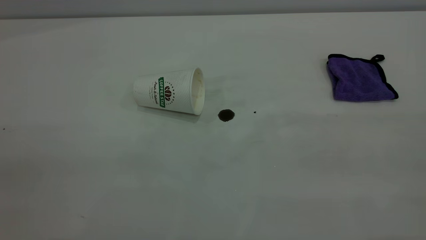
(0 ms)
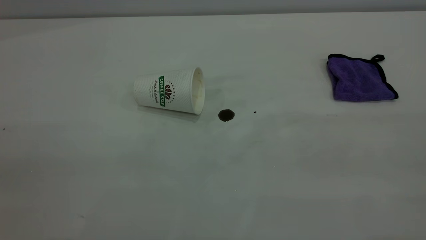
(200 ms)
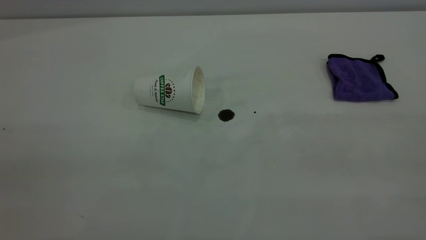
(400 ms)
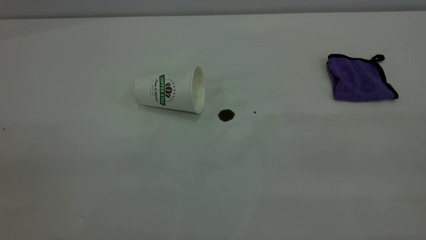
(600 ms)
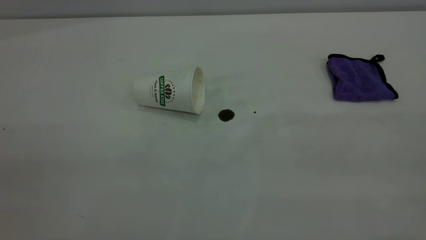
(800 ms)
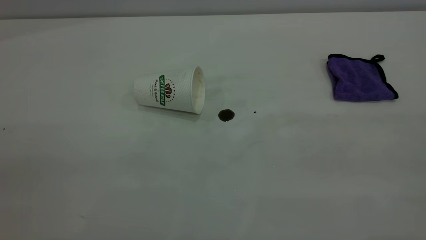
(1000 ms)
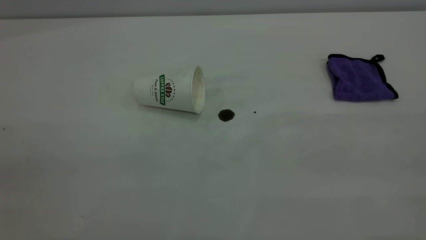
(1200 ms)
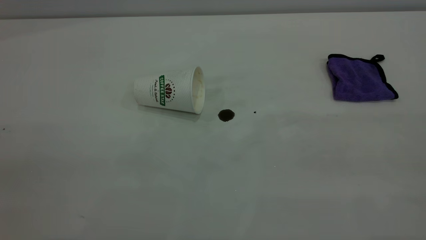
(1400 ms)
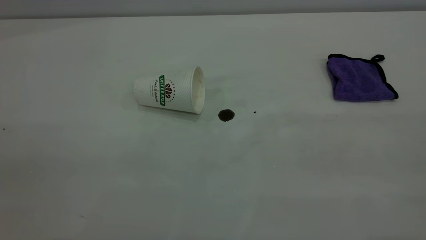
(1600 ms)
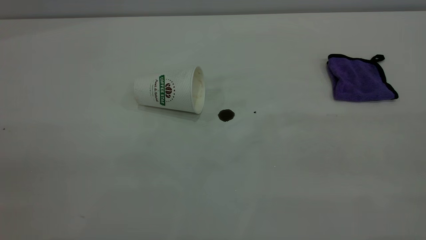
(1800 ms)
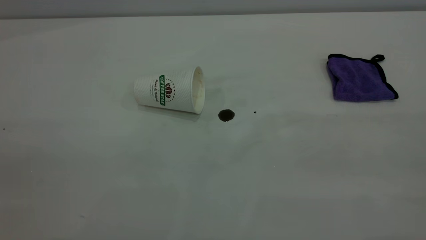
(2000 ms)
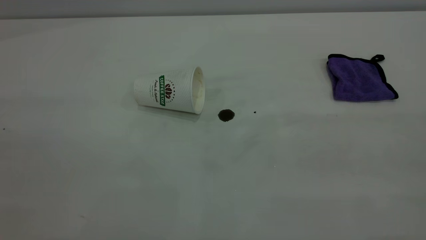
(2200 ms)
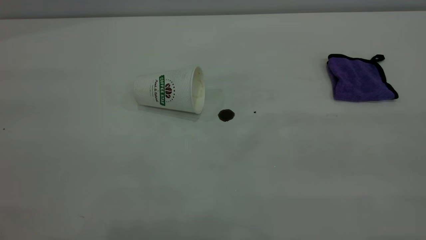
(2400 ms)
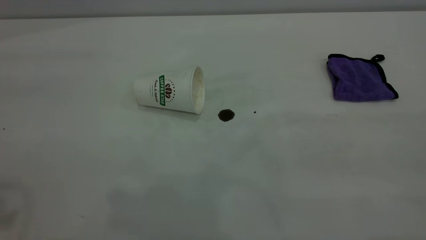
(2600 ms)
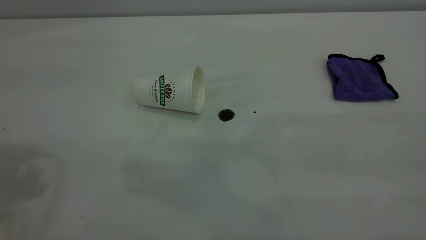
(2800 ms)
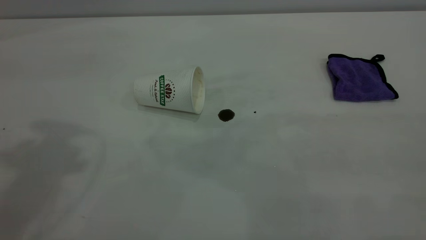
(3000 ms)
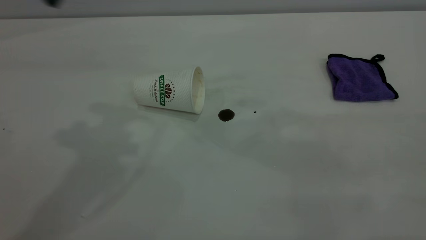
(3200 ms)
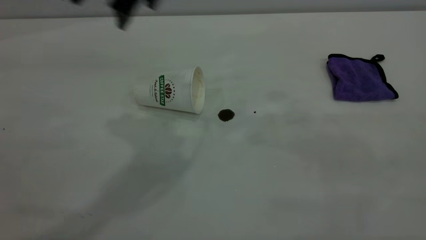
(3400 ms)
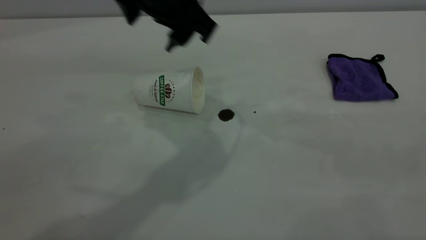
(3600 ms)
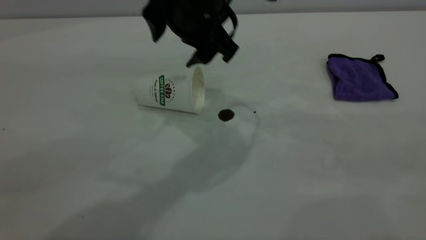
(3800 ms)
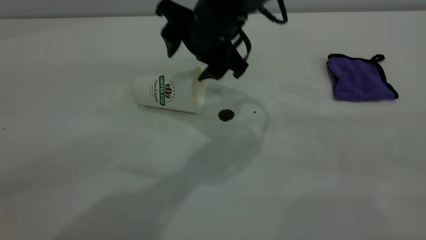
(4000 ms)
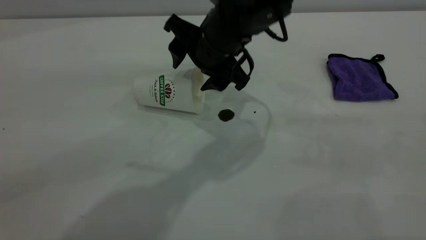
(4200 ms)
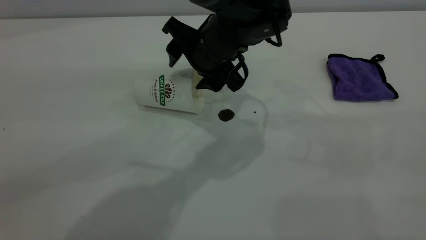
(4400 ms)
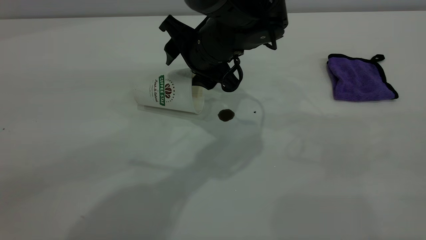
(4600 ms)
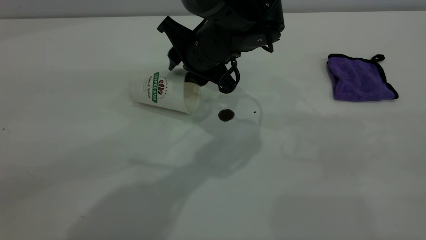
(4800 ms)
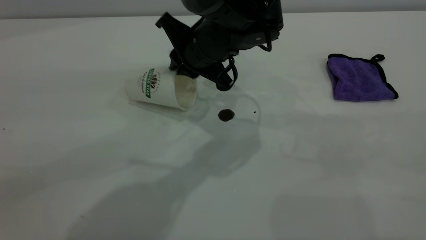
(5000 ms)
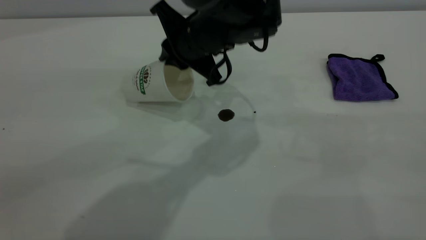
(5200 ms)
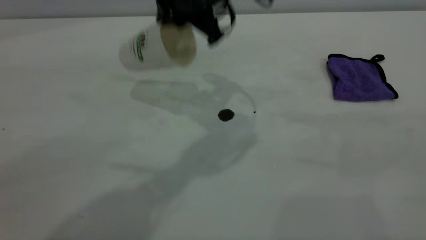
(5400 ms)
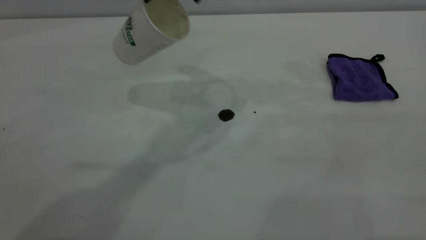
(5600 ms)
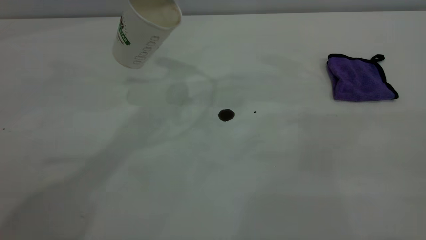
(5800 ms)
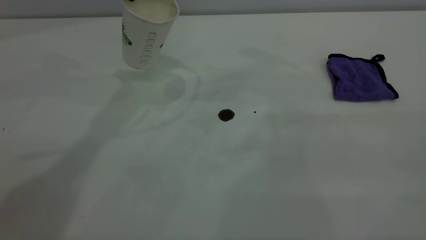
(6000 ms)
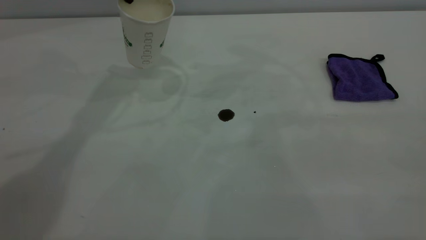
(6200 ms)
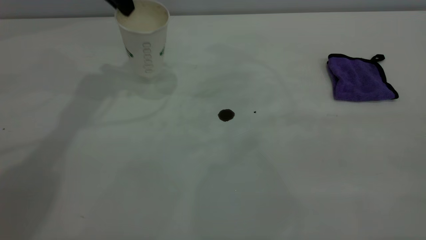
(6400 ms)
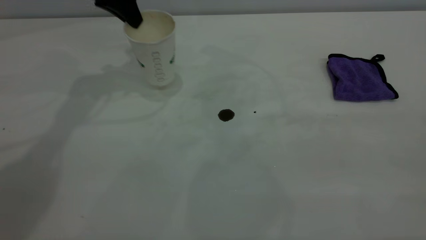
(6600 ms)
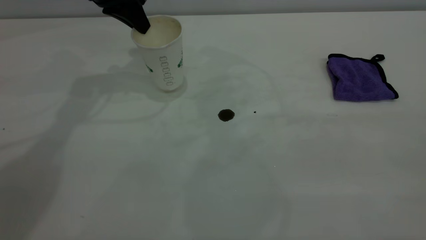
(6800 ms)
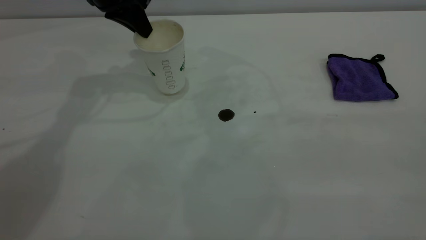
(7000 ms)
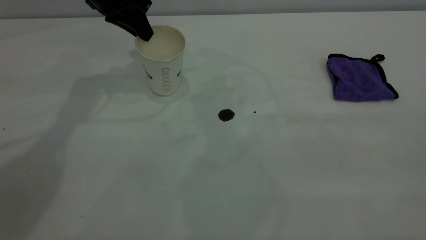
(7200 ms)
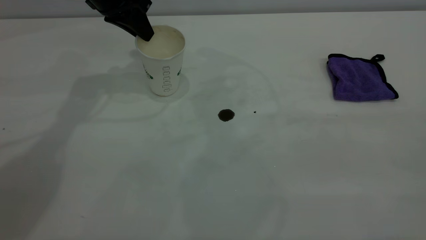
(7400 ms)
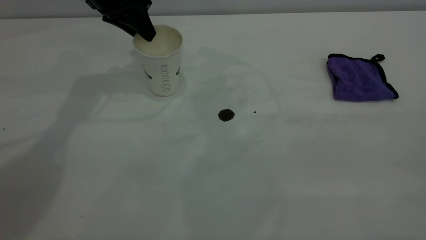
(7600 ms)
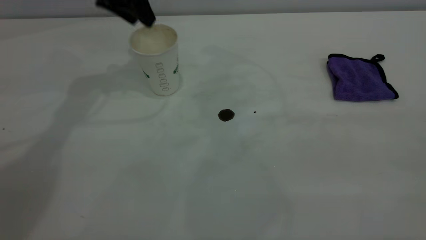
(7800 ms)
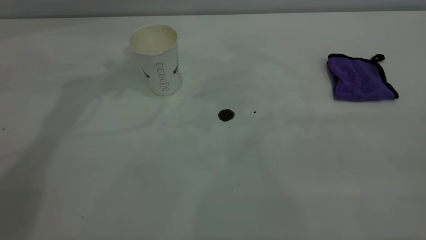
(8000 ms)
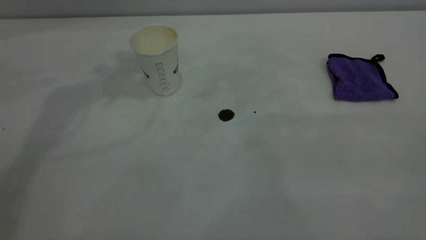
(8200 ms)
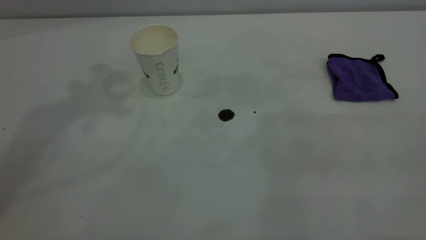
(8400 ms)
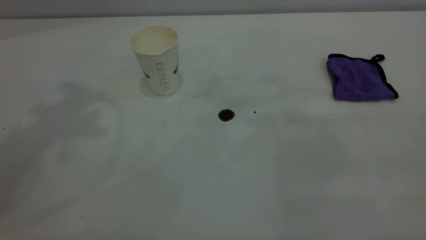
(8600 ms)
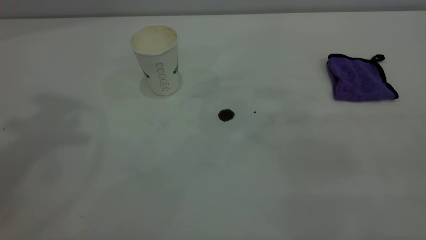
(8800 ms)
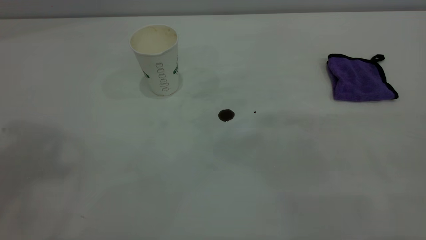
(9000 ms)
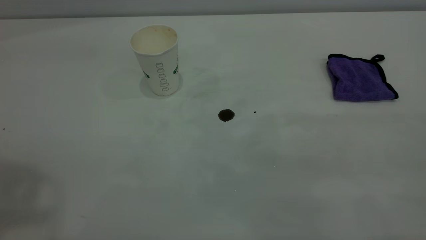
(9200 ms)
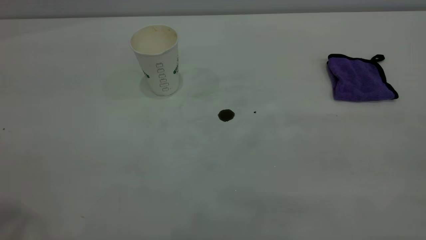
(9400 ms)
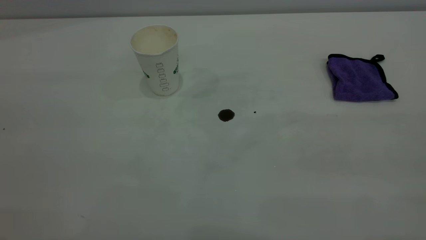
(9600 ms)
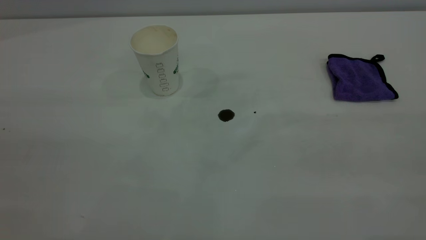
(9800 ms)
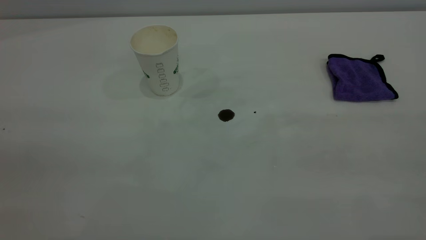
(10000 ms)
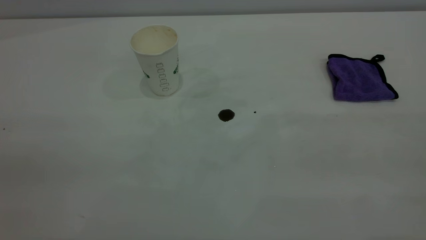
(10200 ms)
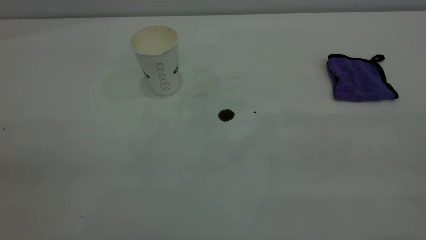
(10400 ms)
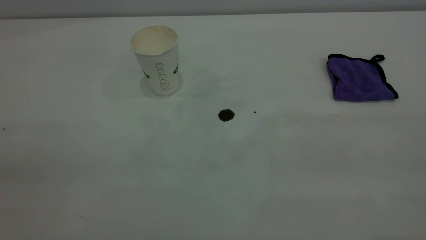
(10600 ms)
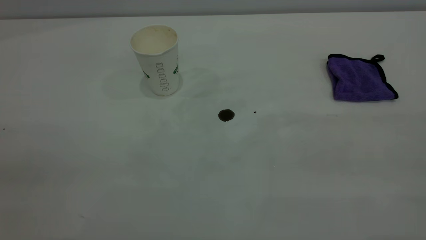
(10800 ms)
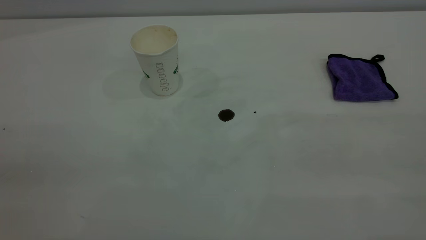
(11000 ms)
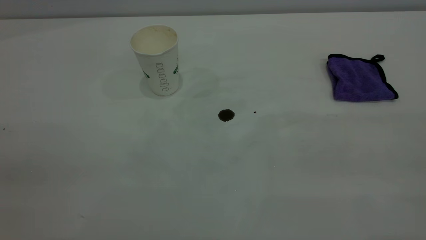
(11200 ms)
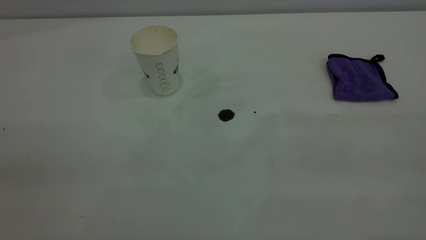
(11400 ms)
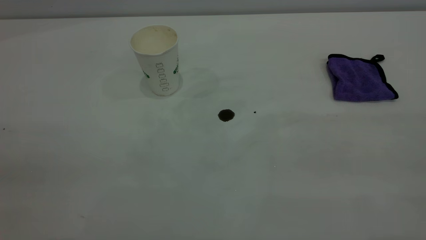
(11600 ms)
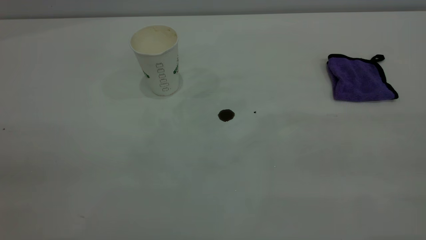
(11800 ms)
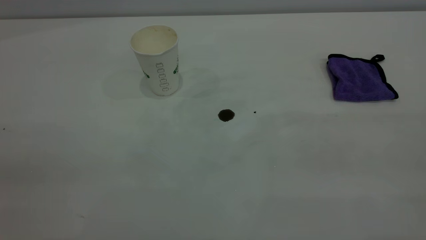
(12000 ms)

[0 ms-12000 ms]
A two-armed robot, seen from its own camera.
Task of the whole recording: the left gripper pick up the fallen cup and place it upright, the right gripper grasp the purple rag and wipe the coffee stain on the table, the right gripper put the purple rag back in its original position.
Step, 0 ms to 7600 ms: Stand the paper cup upright.
0 ms to 1600 ms: Both grippers stay put.
3000 ms to 4400 ms: The left gripper heads to the right and downward, covering about 35 cm.
4400 ms to 6000 ms: The left gripper shifts some 25 cm upward, to the left and forward, and closes up.
6000 ms to 7600 ms: The left gripper shifts some 10 cm downward and to the left, and opens its fingers.
7600 ms to 9000 ms: The left gripper moves upward and backward, approximately 40 cm.
10400 ms to 12000 ms: Both grippers stay put.

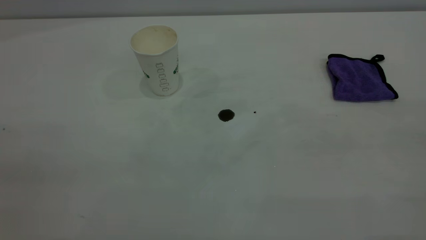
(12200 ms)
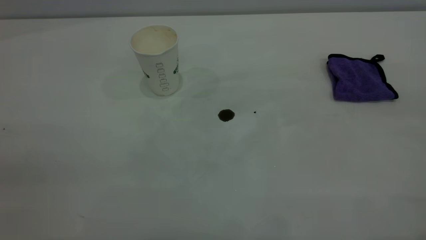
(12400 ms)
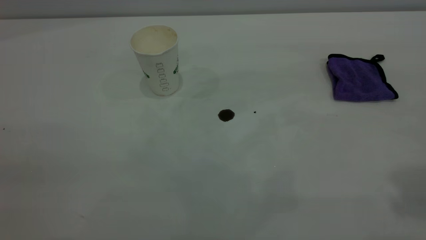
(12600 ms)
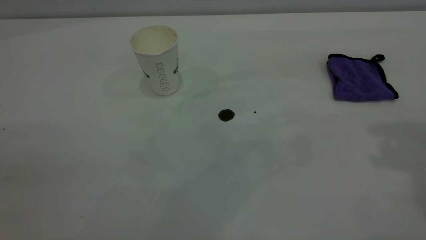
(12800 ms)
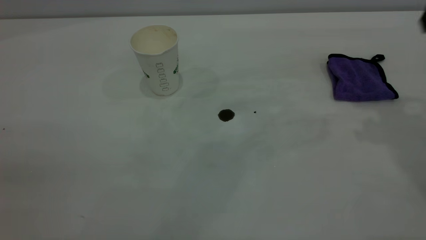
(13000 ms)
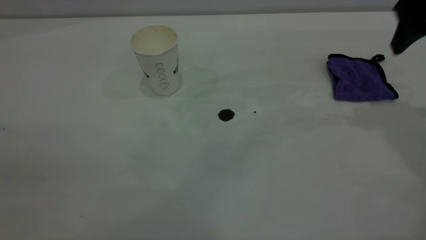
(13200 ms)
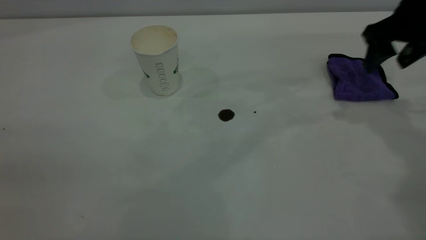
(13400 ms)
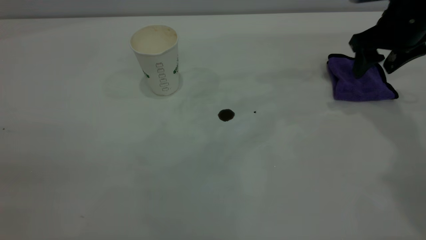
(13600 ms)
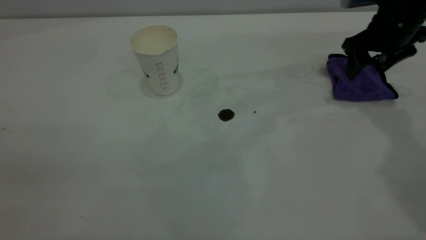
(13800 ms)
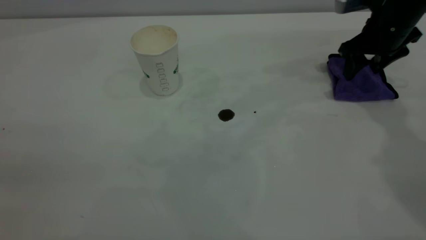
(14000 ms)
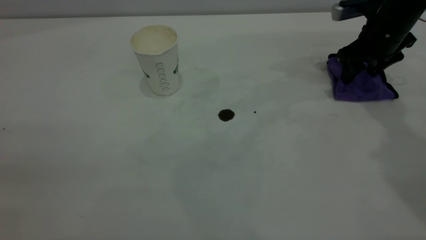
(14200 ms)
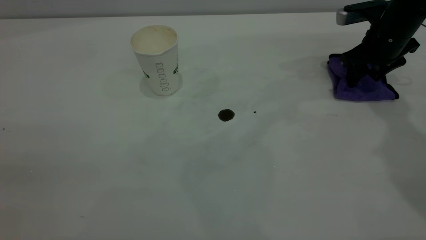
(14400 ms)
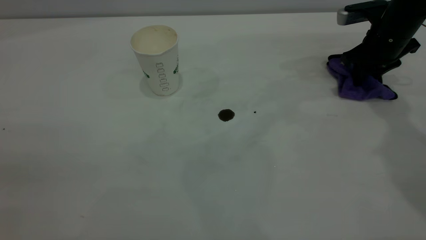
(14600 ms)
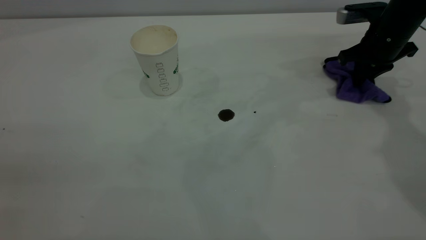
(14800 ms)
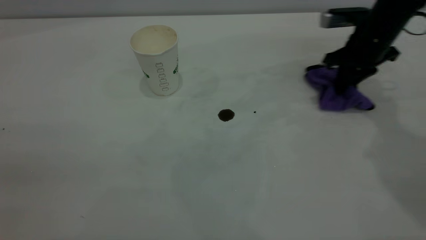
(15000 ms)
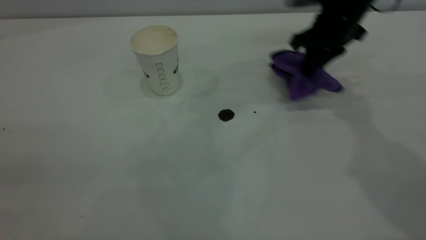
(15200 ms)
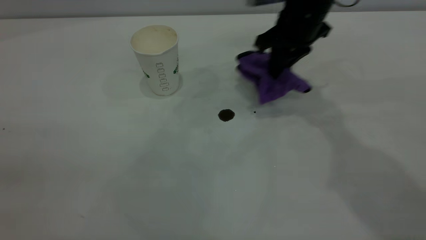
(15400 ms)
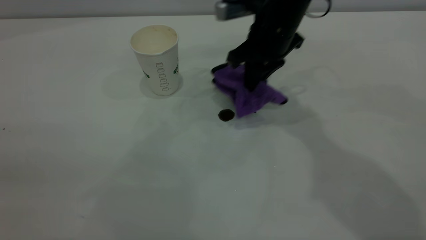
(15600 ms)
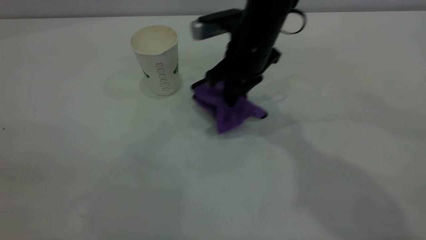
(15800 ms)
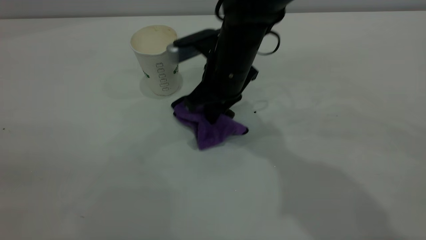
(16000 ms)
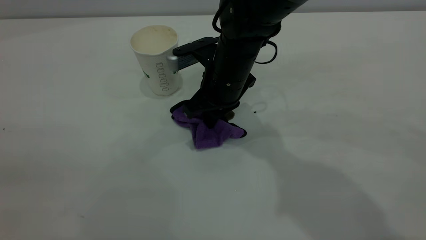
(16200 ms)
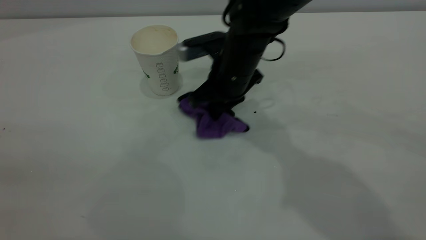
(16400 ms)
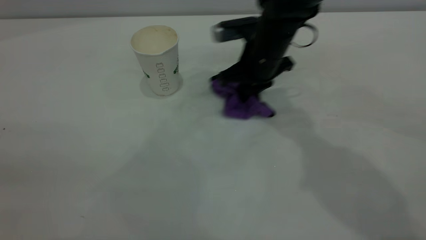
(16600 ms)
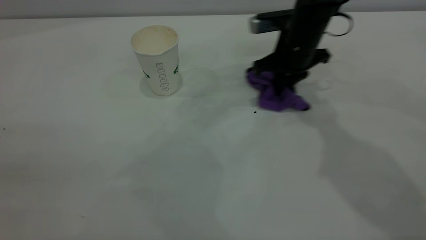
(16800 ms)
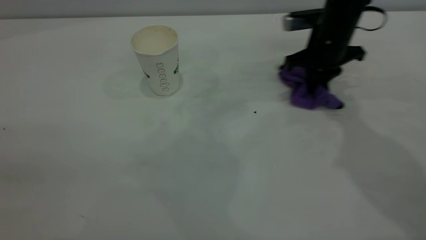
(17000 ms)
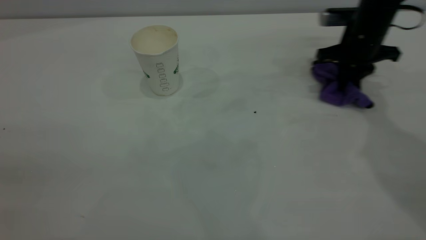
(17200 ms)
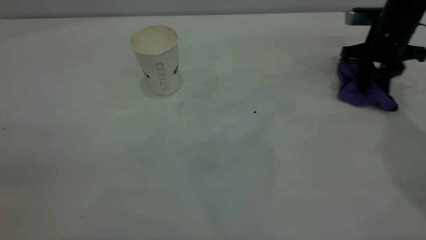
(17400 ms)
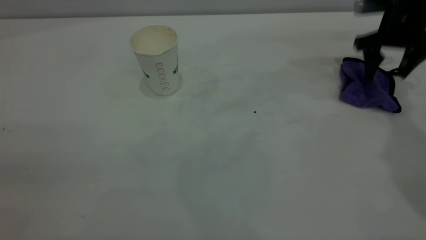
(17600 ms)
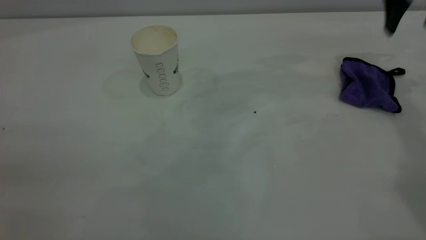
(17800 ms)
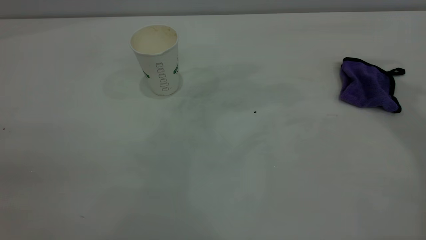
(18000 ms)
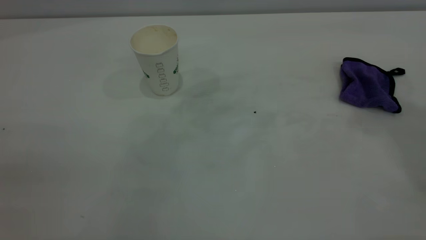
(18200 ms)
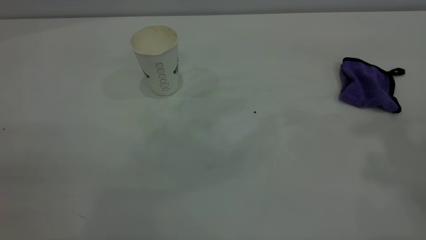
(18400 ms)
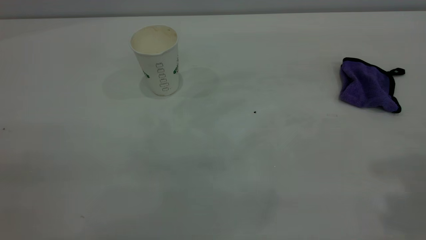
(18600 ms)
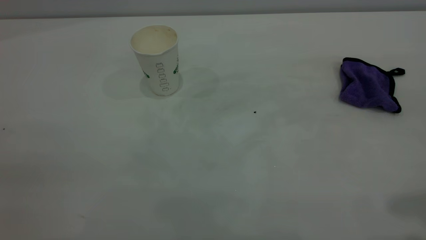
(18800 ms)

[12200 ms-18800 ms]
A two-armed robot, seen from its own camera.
Task of the whole recording: the left gripper pick up the fallen cup and place it upright, the right gripper grasp the purple rag and wipe the coffee stain on the table, the right gripper put the purple rag back in its original position.
Step, 12200 ms to 17600 ms: Wipe the stains off the table with a rag.
12200 ms to 13800 ms: The right gripper shifts some 50 cm forward and downward.
13800 ms to 15400 ms: The right gripper is displaced to the left by roughly 15 cm, and closes its fingers.
15400 ms to 17200 ms: The right gripper travels to the right and downward by roughly 15 cm.
17200 ms to 18800 ms: The right gripper travels backward and upward by roughly 50 cm, and opens.
